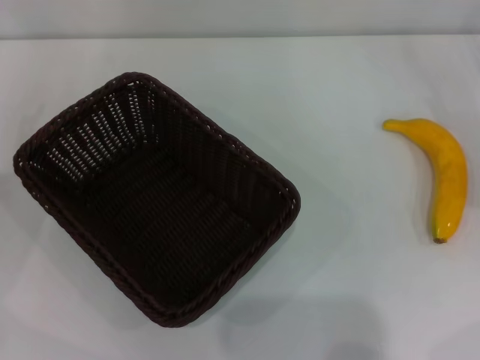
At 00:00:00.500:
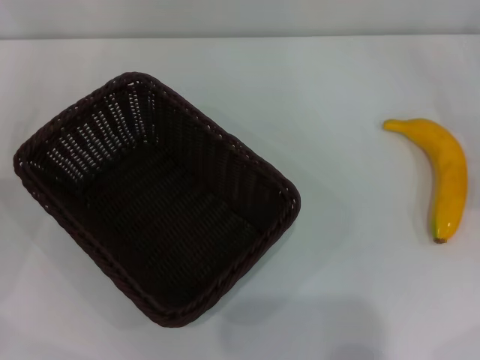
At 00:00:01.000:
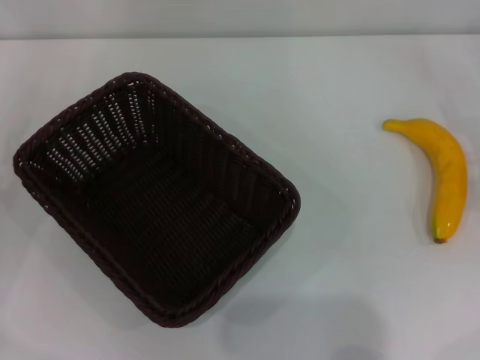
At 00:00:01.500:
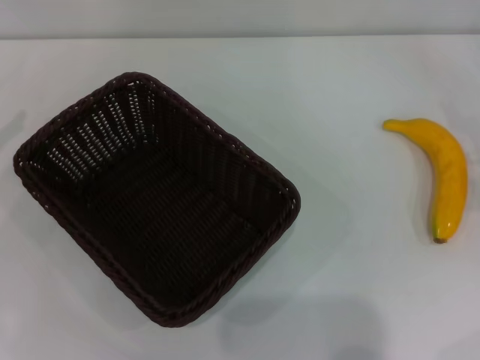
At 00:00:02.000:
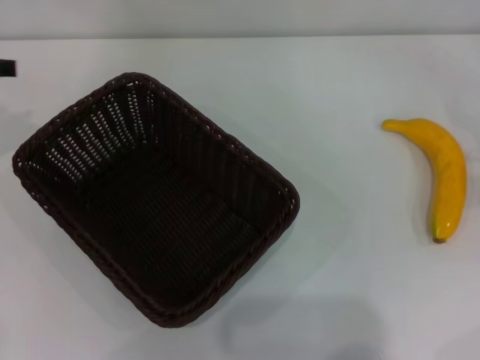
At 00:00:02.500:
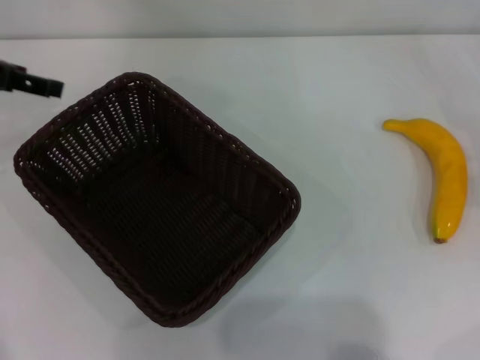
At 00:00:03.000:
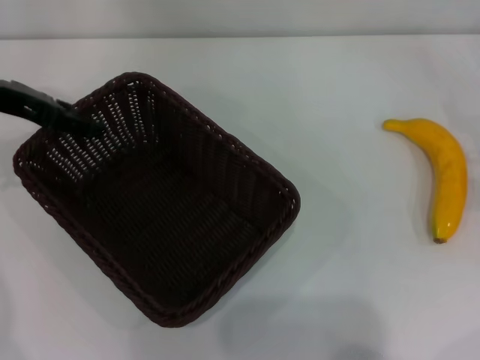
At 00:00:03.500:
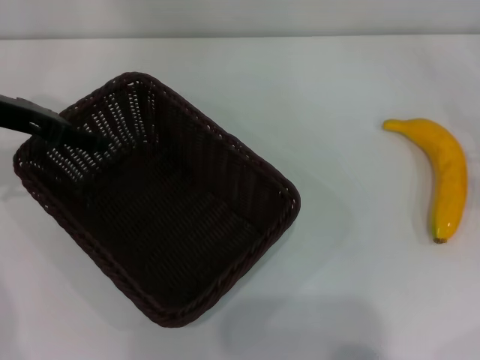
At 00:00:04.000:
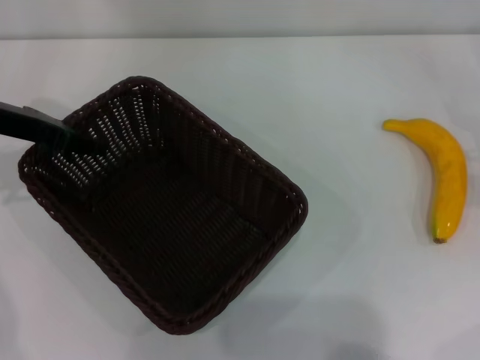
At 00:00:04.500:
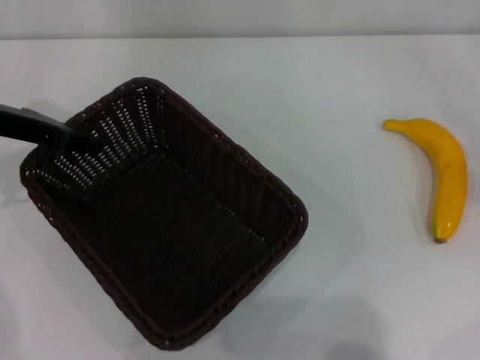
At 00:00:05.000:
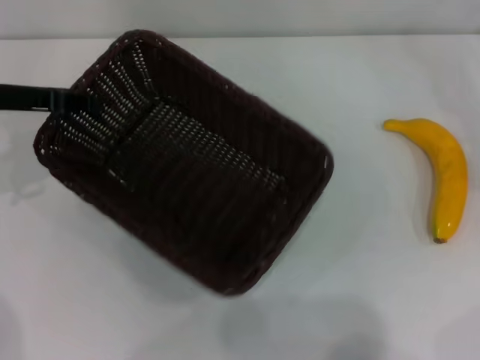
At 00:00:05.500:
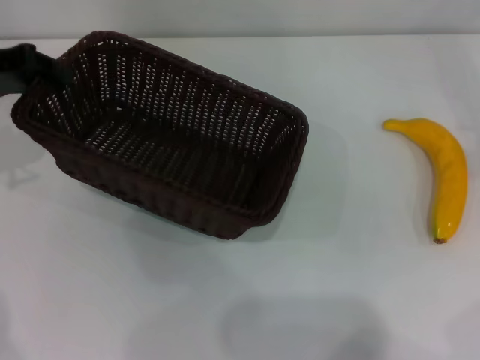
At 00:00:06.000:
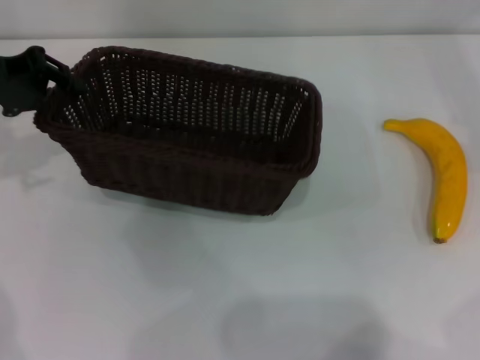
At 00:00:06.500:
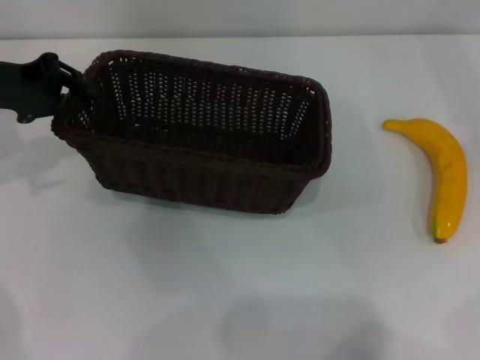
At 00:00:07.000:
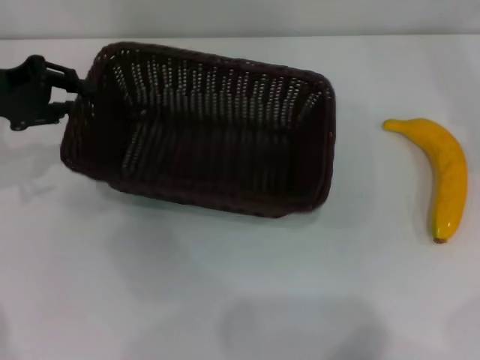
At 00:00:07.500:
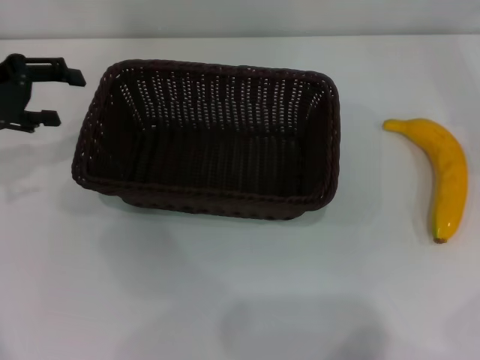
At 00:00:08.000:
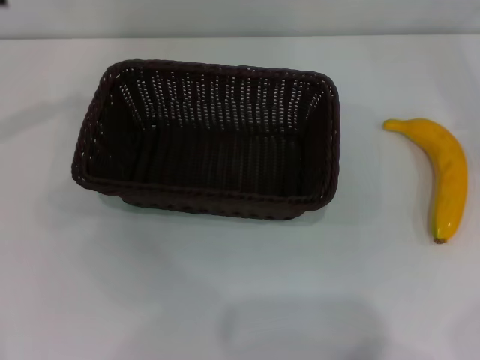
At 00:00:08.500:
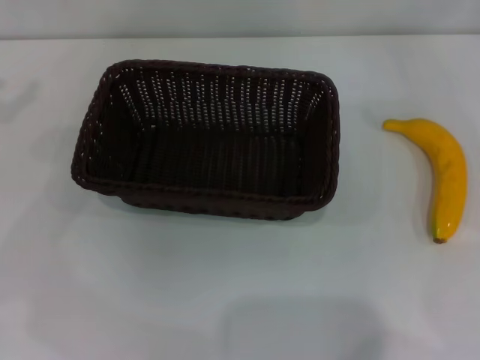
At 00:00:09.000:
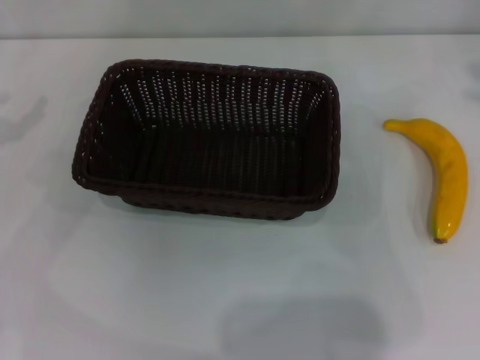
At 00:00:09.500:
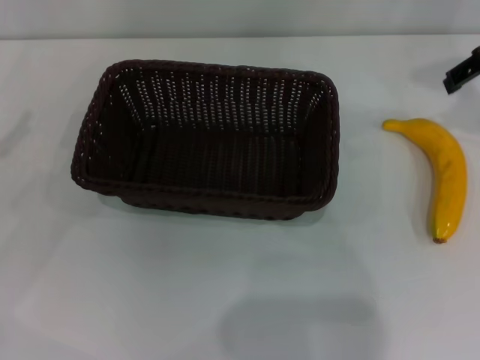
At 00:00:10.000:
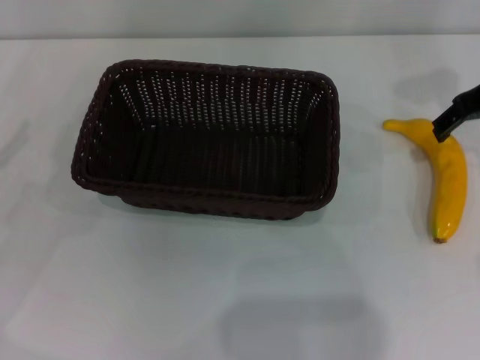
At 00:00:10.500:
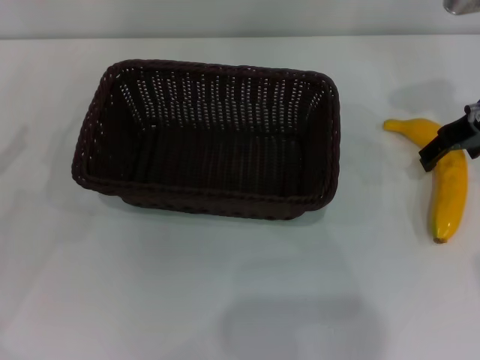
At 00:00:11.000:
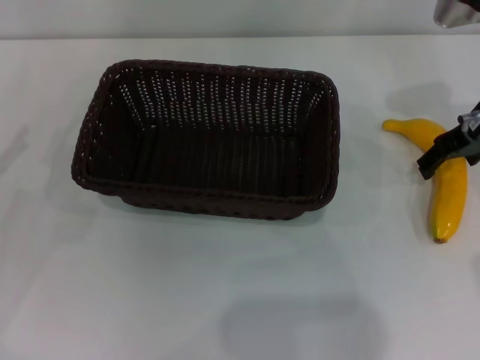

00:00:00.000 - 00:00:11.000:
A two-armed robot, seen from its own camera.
Step, 00:00:00.000 - 00:00:04.500: Pick up the dark basket with the left gripper.
Step, 00:00:05.000 - 00:00:07.000: Place the dark basket in the center of view with the left gripper.
00:00:02.000 - 00:00:03.500: The left gripper heads to the right, covering approximately 10 cm.
00:00:03.500 - 00:00:05.500: The right gripper goes about 5 cm upward. Meanwhile the left gripper closes up.
00:00:05.500 - 00:00:07.500: The left gripper opens.
00:00:07.500 - 00:00:09.000: The left gripper is displaced to the left and backward by about 10 cm.
00:00:09.000 - 00:00:11.000: The right gripper travels to the left and downward by roughly 15 cm.

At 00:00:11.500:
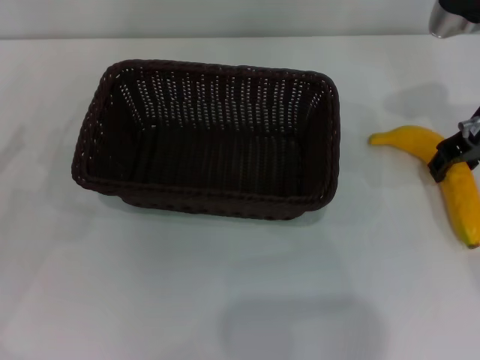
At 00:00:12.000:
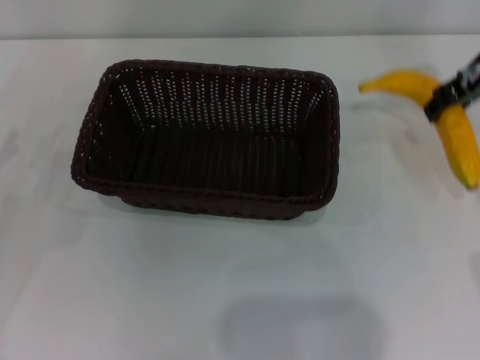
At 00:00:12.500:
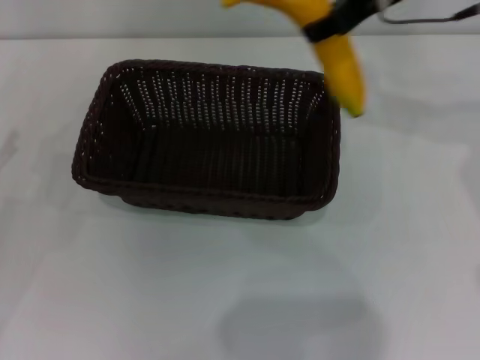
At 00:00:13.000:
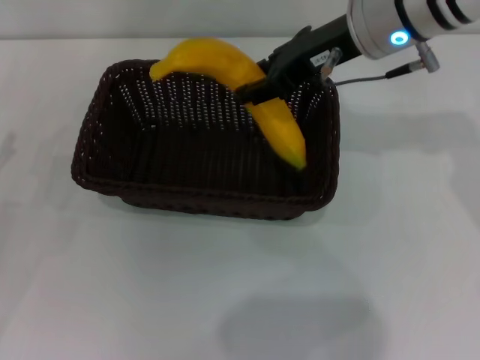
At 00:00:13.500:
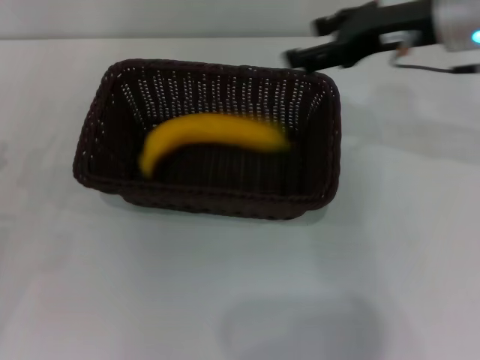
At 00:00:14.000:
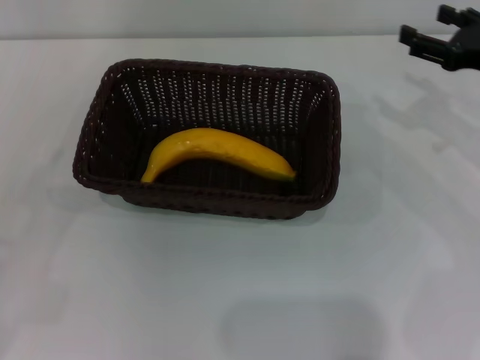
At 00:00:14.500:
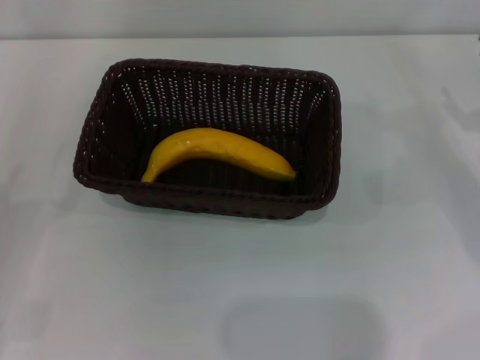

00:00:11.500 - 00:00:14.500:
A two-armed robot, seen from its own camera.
Step, 00:00:12.500 - 00:00:13.000: Place the banana into the dark basket with the right gripper.
00:00:11.500 - 00:00:13.000: The right gripper moves to the left and upward, some 15 cm, and closes up.
00:00:13.000 - 00:00:14.500: The right gripper moves to the right and downward, roughly 25 cm, and opens. The left gripper heads backward, covering about 5 cm.

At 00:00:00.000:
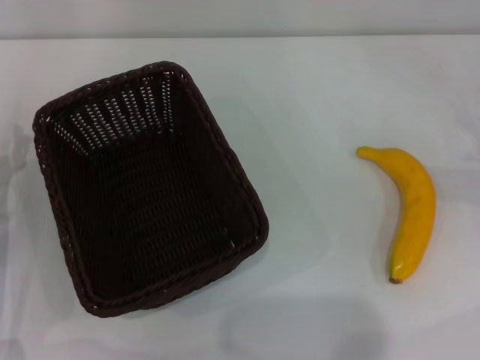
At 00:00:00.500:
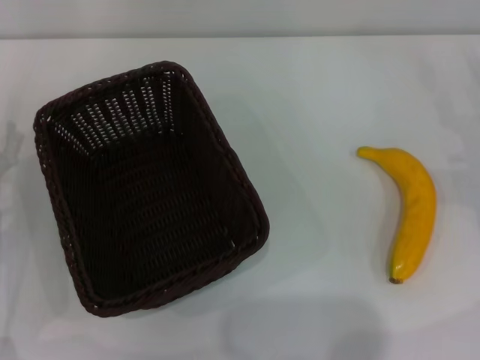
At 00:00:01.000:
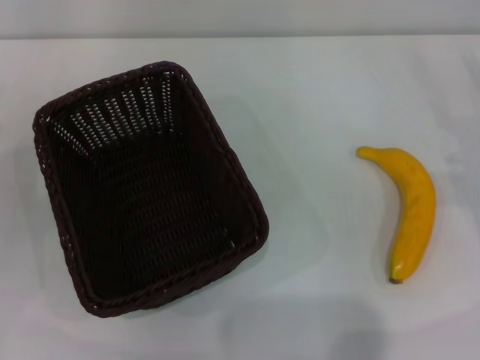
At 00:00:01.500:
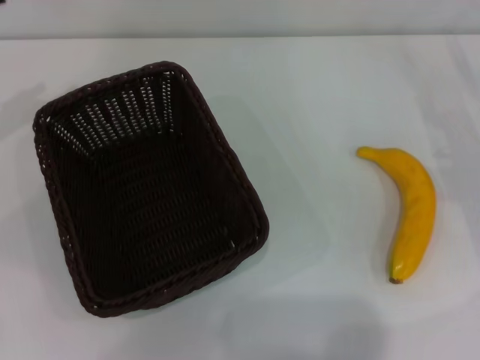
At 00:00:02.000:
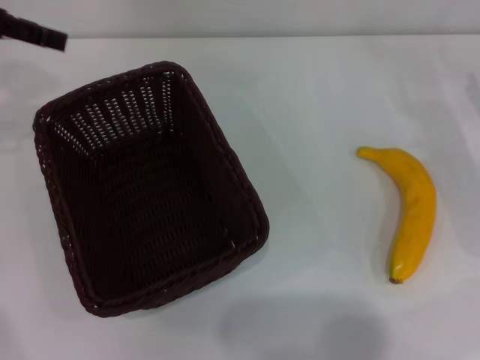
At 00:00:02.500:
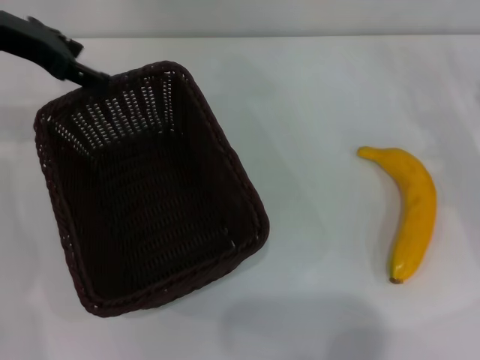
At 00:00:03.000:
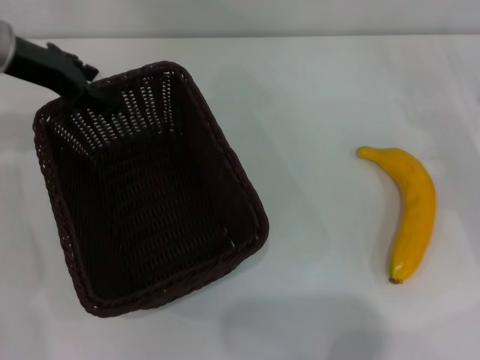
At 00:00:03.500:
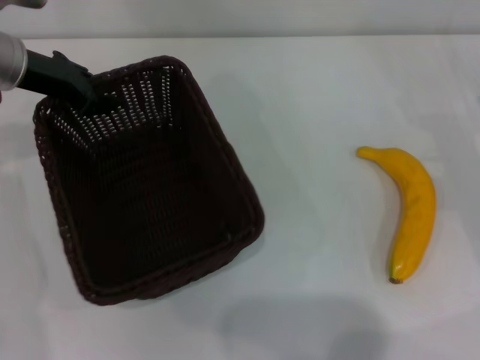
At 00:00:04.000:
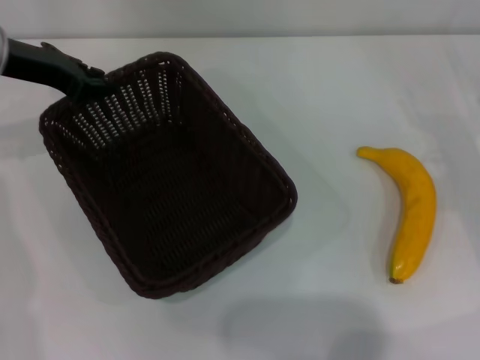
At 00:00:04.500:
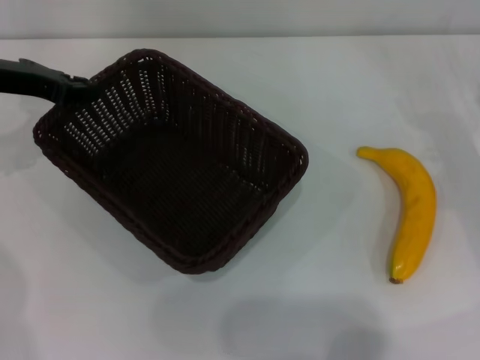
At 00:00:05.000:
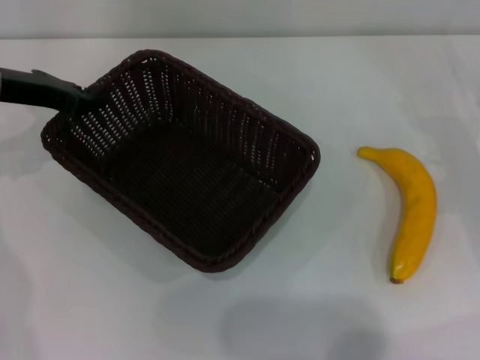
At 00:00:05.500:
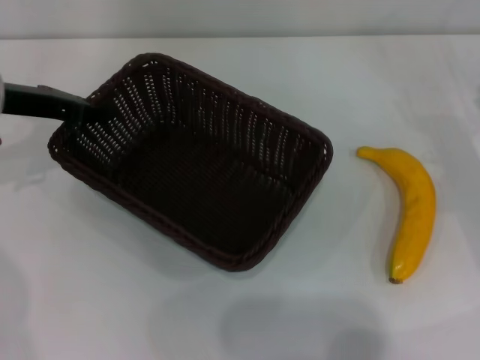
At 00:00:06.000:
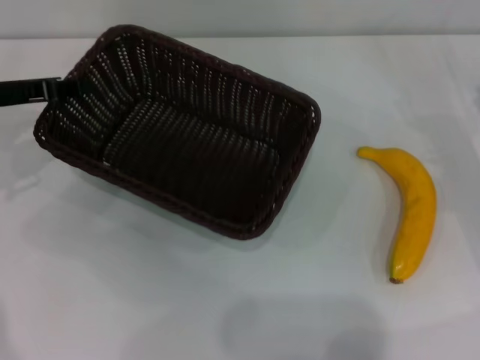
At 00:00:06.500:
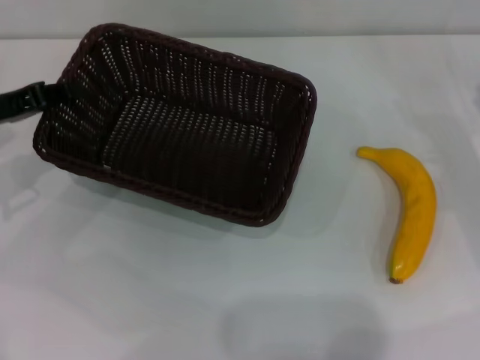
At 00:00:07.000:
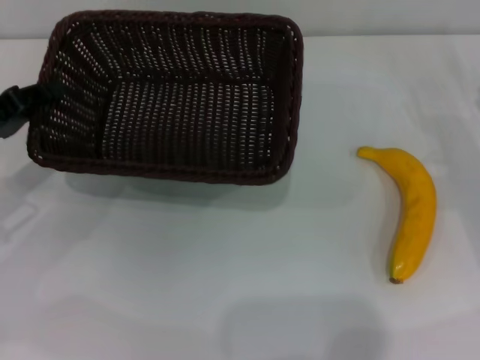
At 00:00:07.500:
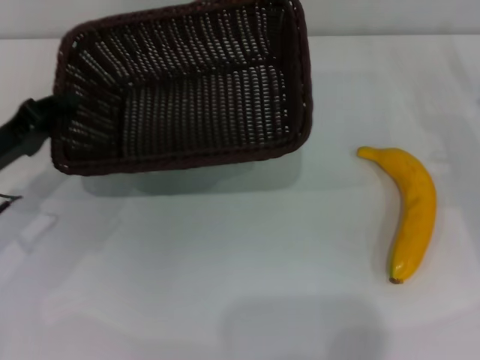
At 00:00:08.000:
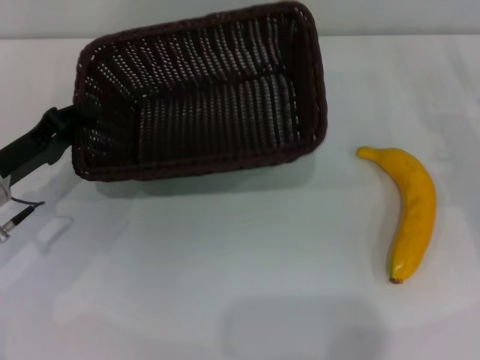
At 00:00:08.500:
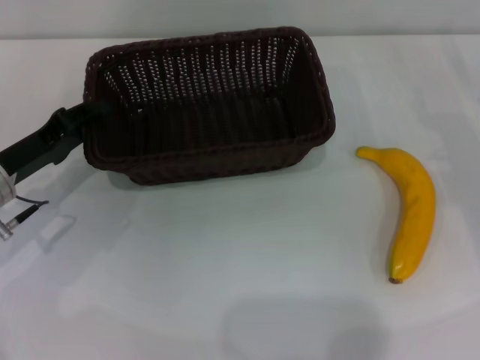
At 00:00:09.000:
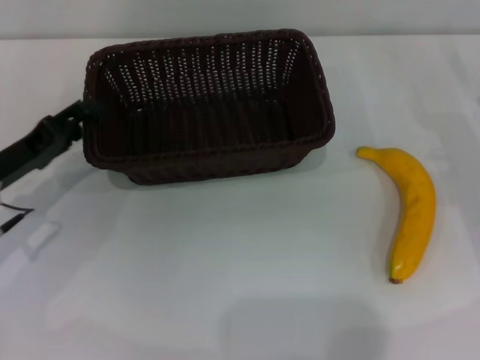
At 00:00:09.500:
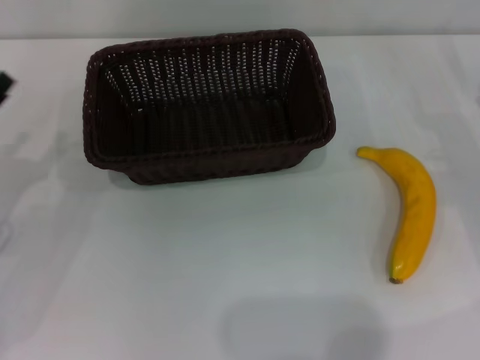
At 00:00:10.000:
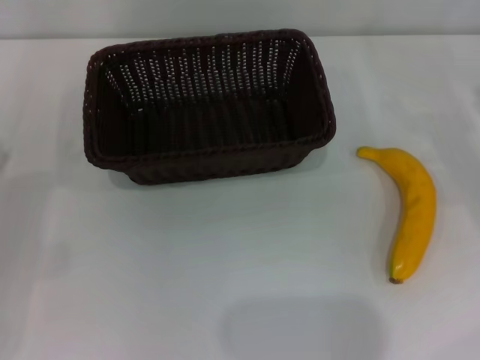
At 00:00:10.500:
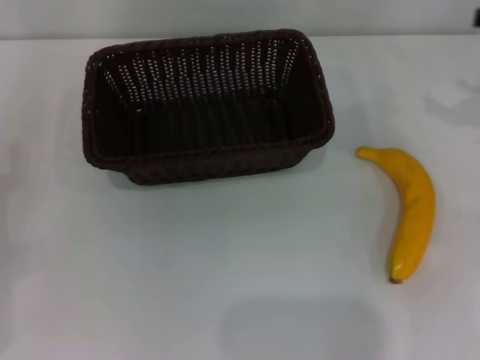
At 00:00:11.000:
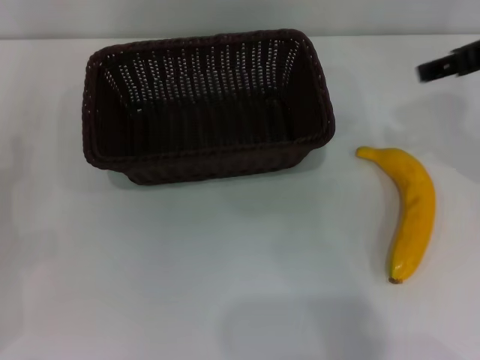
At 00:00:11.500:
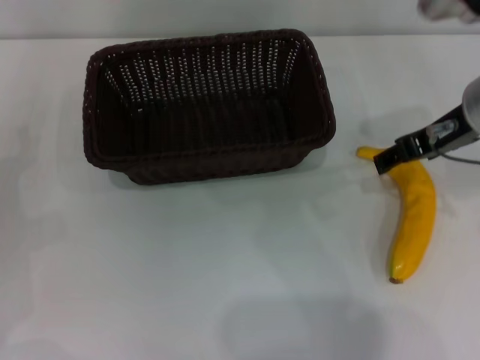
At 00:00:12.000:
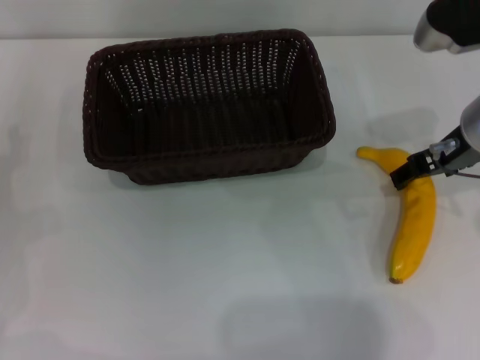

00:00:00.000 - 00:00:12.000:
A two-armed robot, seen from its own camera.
Step, 00:00:00.000 - 00:00:04.000: Pick up the dark basket with the left gripper.
Step, 00:00:04.500 - 00:00:08.500: Place the dark basket in the center of view with the left gripper.
00:00:00.000 - 00:00:02.000: The left gripper heads upward and forward, covering roughly 30 cm.
00:00:02.000 - 00:00:04.000: The left gripper shifts approximately 10 cm downward, and closes.
00:00:04.000 - 00:00:06.000: The left gripper ends up roughly 5 cm from where it was.
00:00:06.000 - 00:00:08.000: The left gripper heads downward and backward, covering roughly 10 cm.
00:00:08.000 - 00:00:10.000: The left gripper is displaced backward and to the left by about 10 cm, and opens.
00:00:10.000 - 00:00:12.000: The right gripper travels to the left and upward by about 20 cm.
